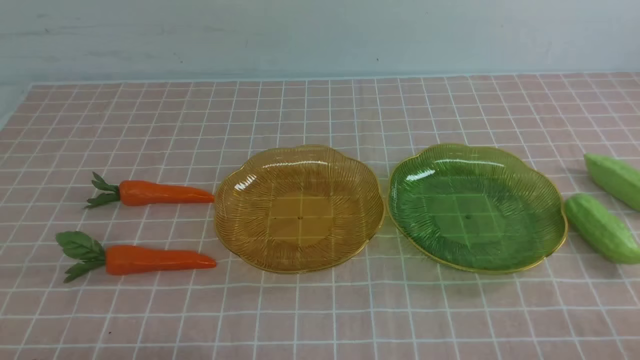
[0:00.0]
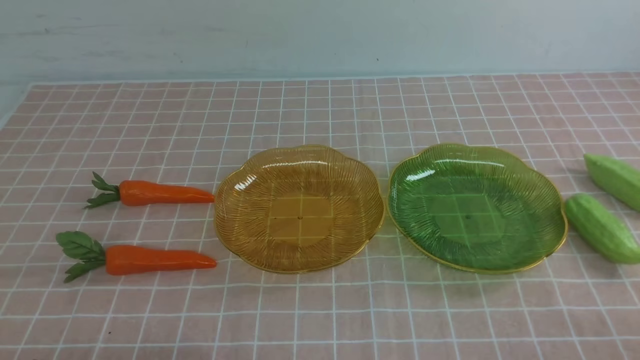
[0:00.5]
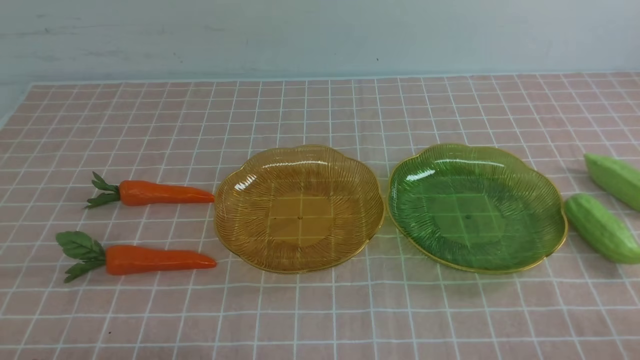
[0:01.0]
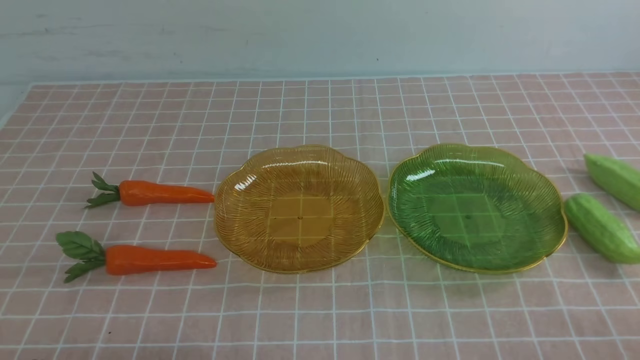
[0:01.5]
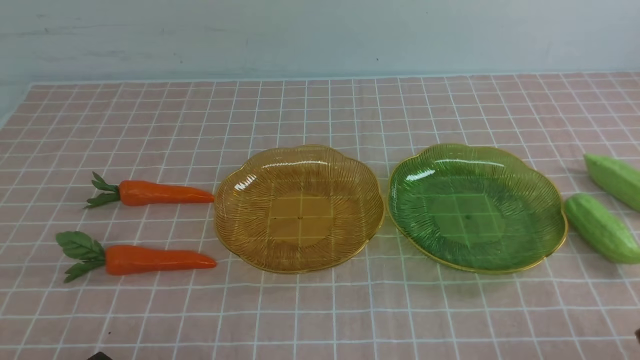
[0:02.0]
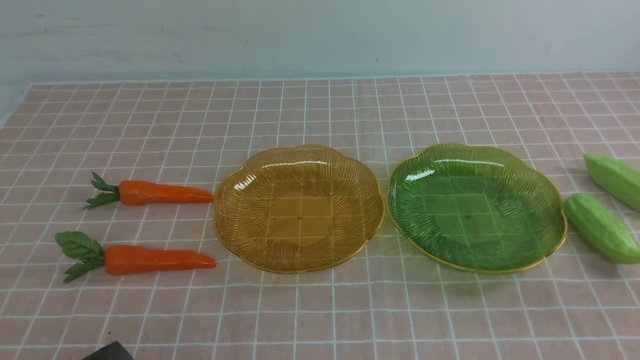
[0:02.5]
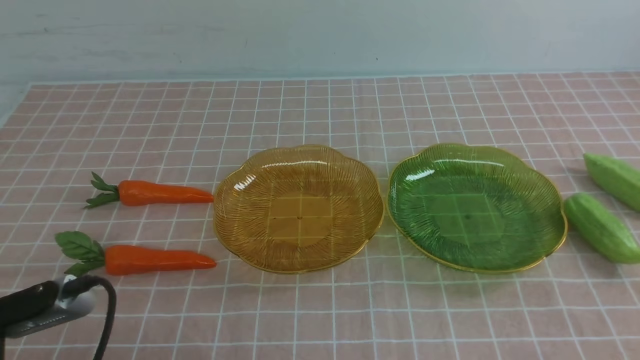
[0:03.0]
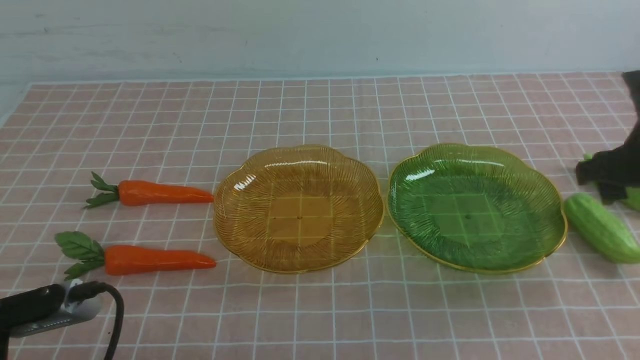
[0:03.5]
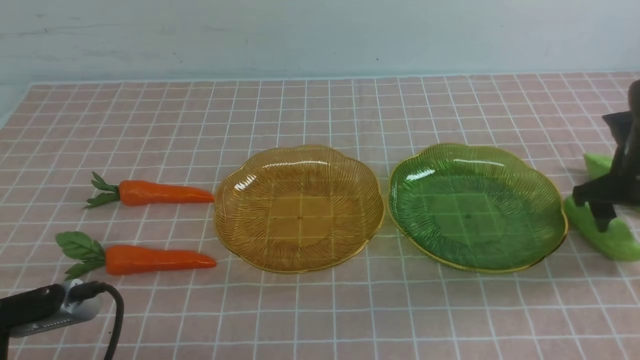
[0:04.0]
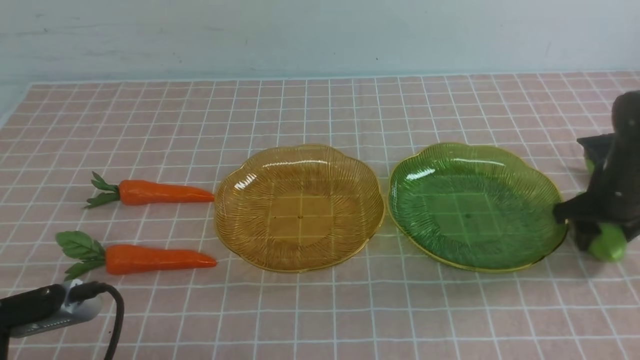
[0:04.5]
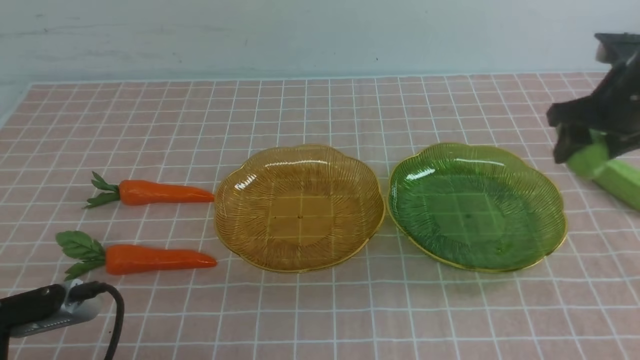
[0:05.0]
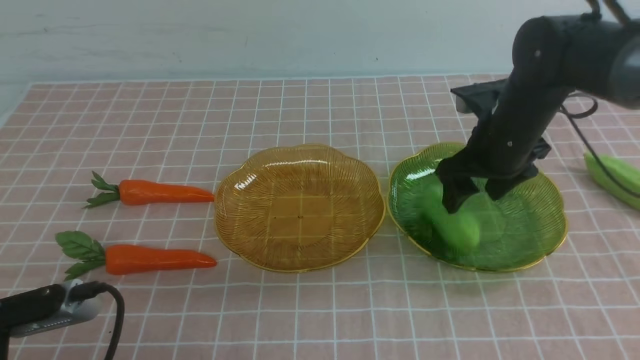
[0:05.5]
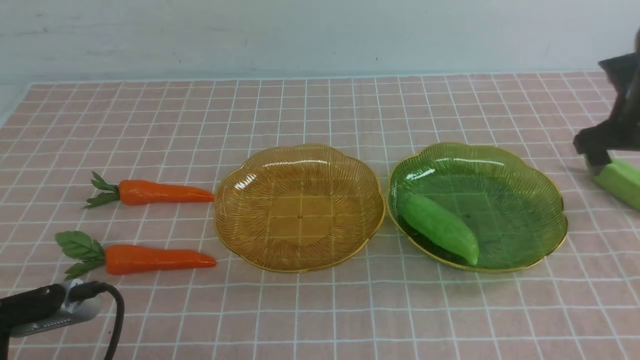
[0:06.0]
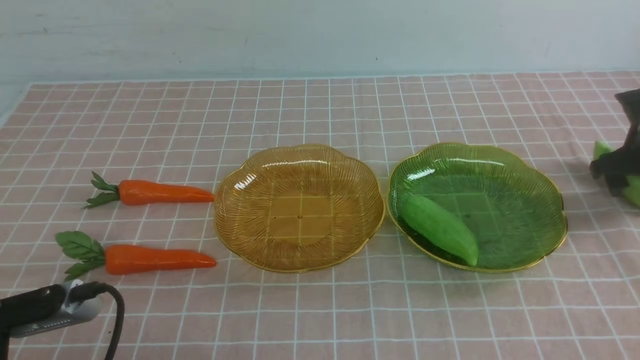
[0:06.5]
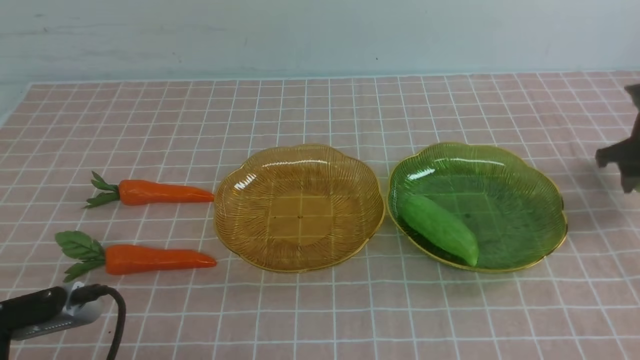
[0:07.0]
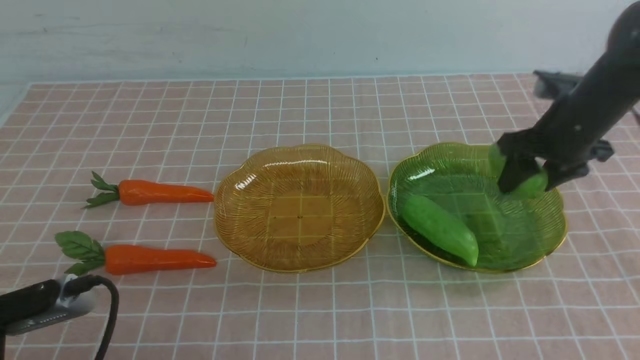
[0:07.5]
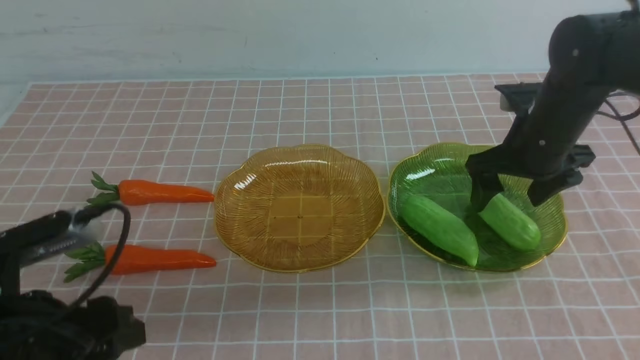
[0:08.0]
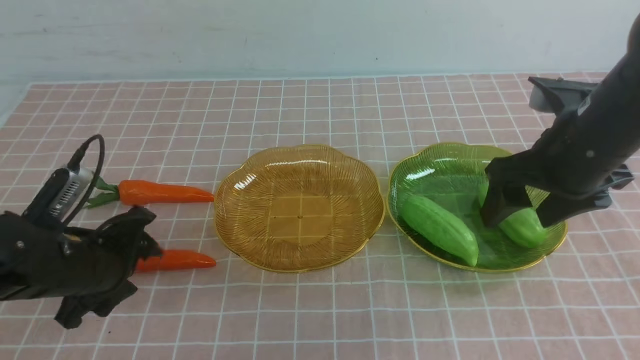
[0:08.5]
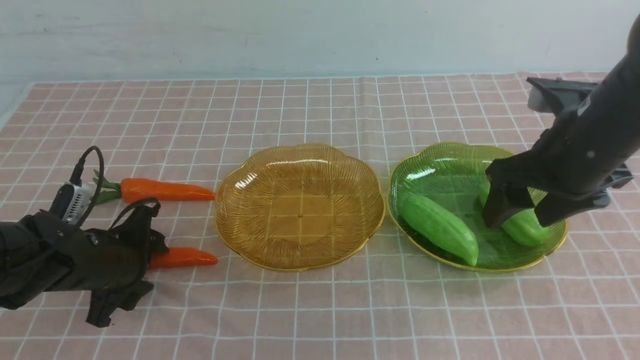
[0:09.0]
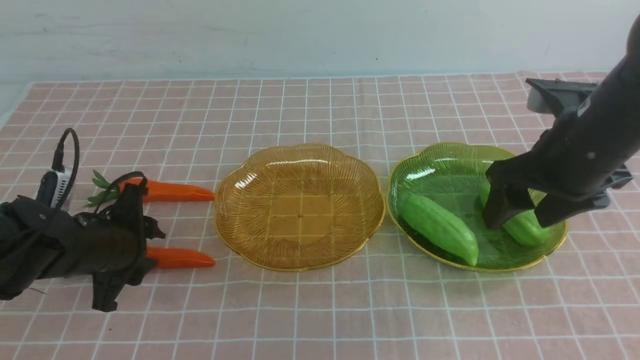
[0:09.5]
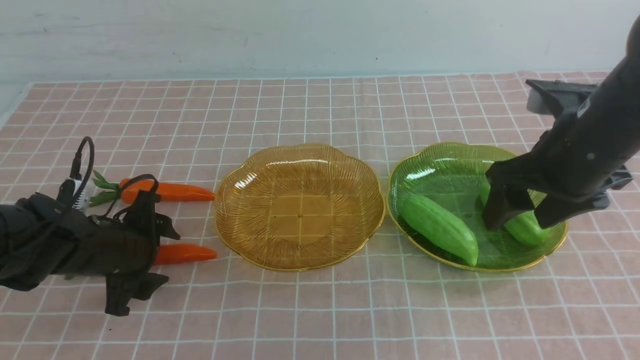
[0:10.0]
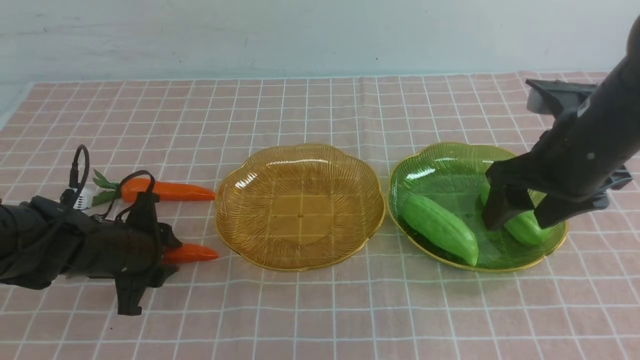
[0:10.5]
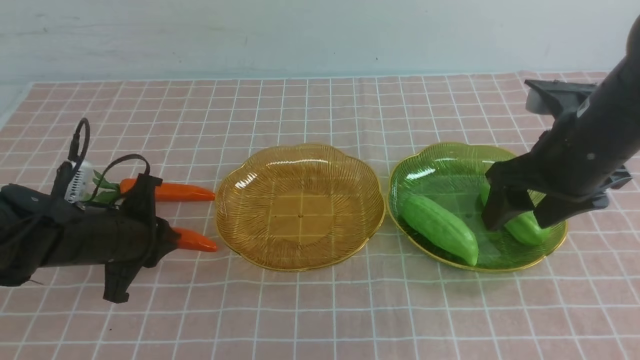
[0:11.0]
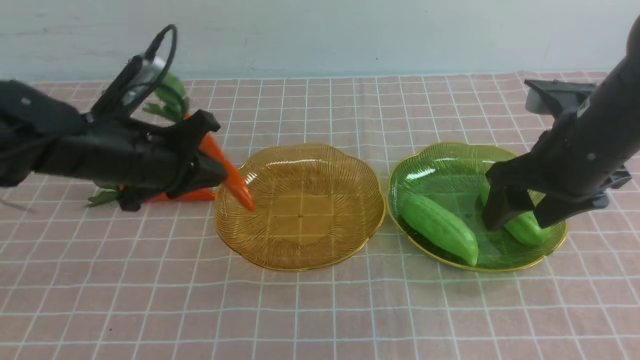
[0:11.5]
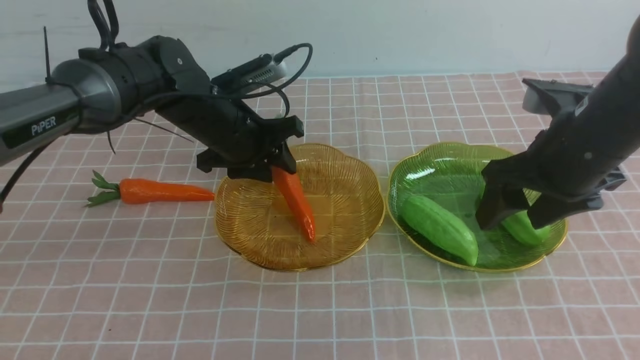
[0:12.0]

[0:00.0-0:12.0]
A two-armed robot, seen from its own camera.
Step, 0:00.0 to 0:05.0: use the right arm to grab a chayote and put it into the right plate.
Step, 0:06.0 to 0:07.5: use the right arm to grab a chayote and put it into the right plate.
0:02.0 to 0:04.0: The right gripper moves forward, about 35 cm, and opens its fingers. Meanwhile the left gripper ends up approximately 5 cm from where it was.
0:04.0 to 0:06.0: The right gripper heads forward, covering about 5 cm, and reaches approximately 10 cm to the left, then returns.
0:06.0 to 0:08.0: The right gripper shifts about 15 cm to the left and backward. The left gripper goes roughly 5 cm forward, and opens its fingers.
0:08.0 to 0:10.0: The left gripper shifts some 15 cm forward and downward; the right gripper moves backward, roughly 5 cm.
0:10.0 to 0:12.0: The left gripper travels forward, upward and to the right by roughly 15 cm, and closes and opens again.

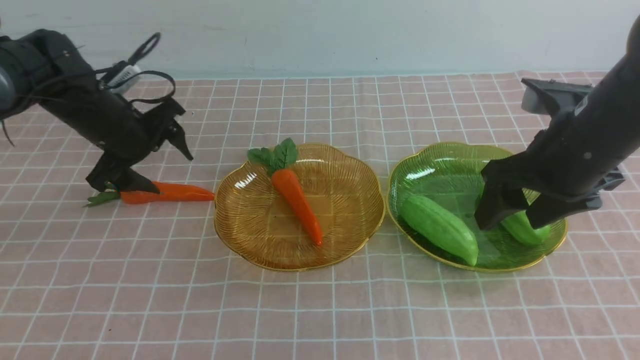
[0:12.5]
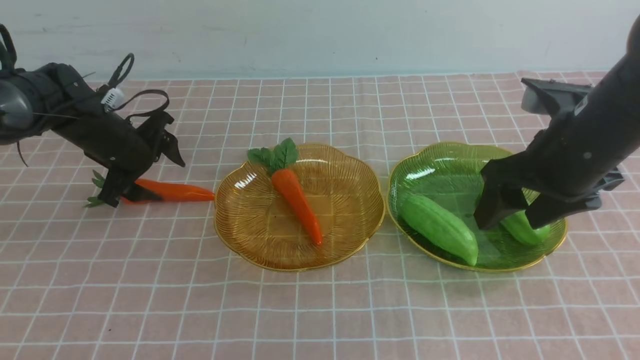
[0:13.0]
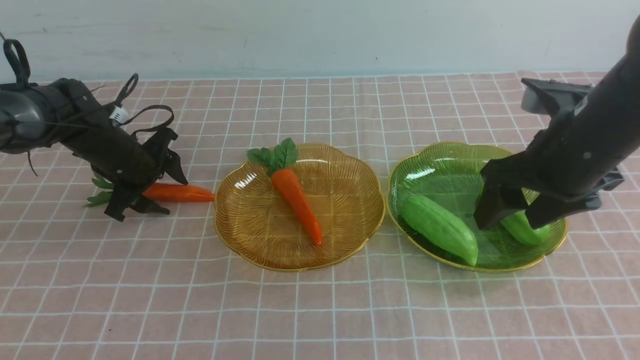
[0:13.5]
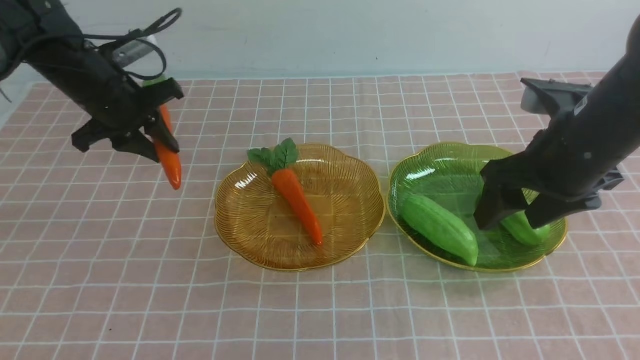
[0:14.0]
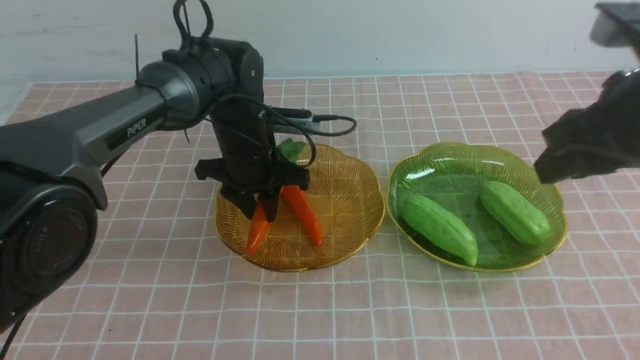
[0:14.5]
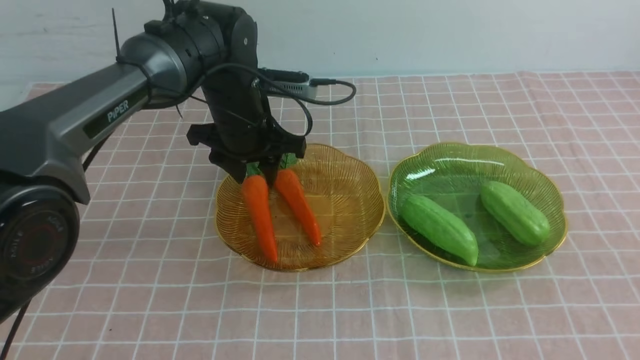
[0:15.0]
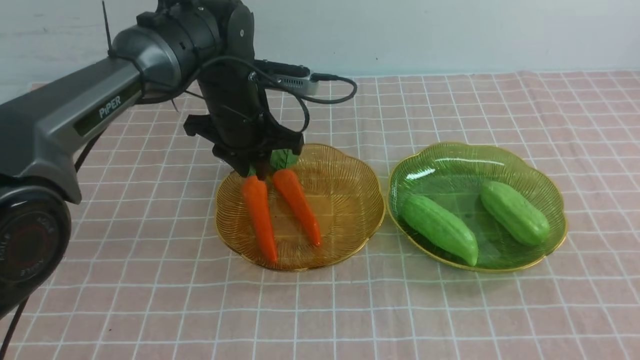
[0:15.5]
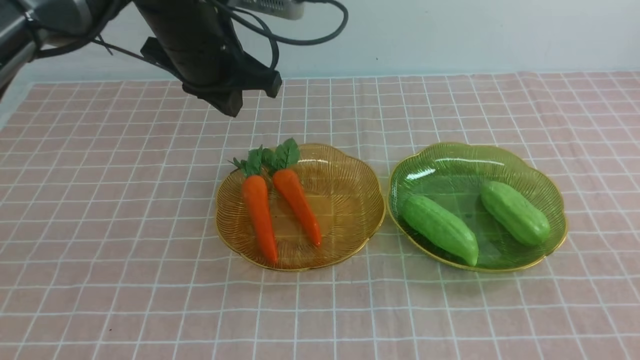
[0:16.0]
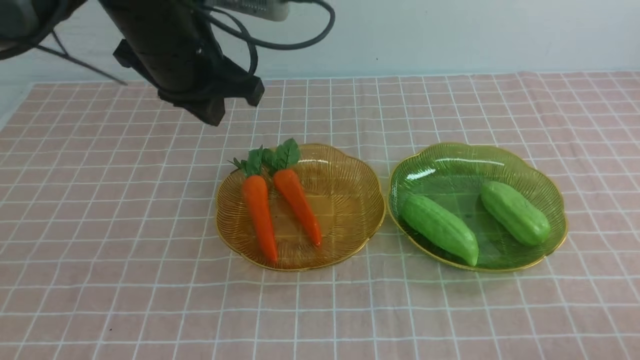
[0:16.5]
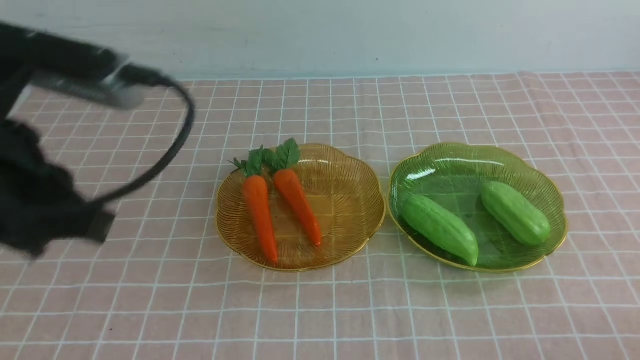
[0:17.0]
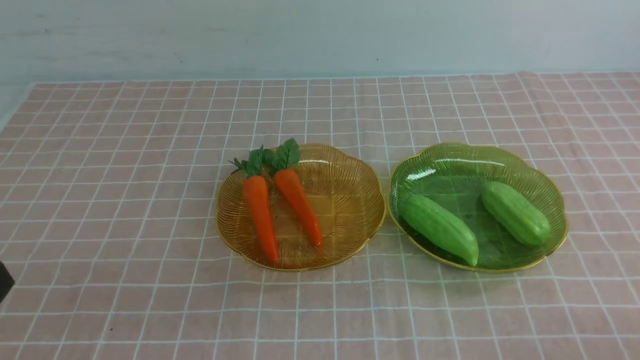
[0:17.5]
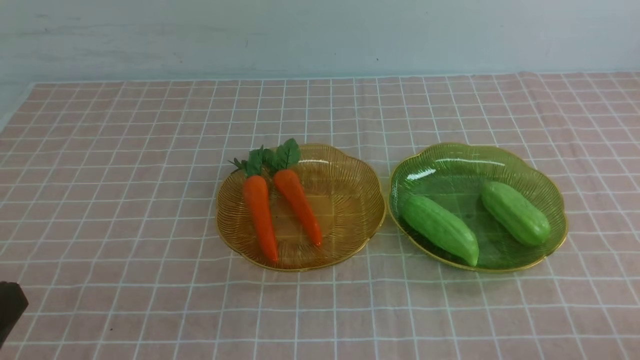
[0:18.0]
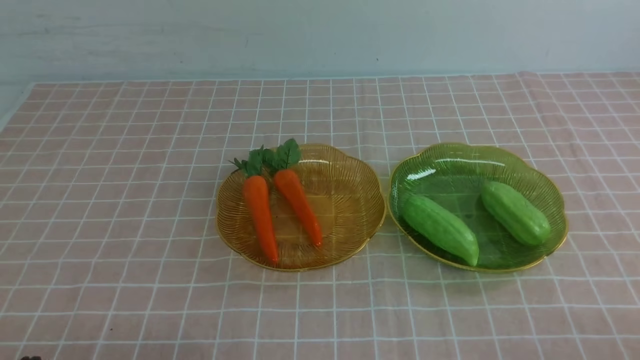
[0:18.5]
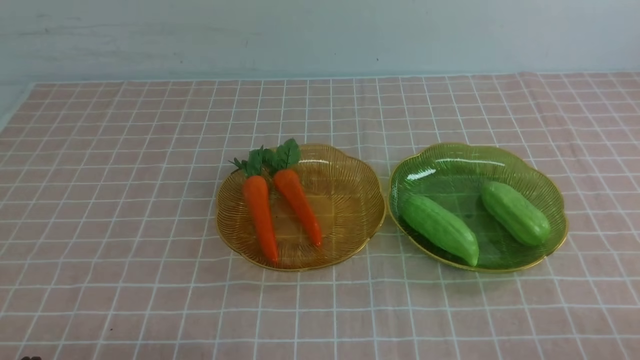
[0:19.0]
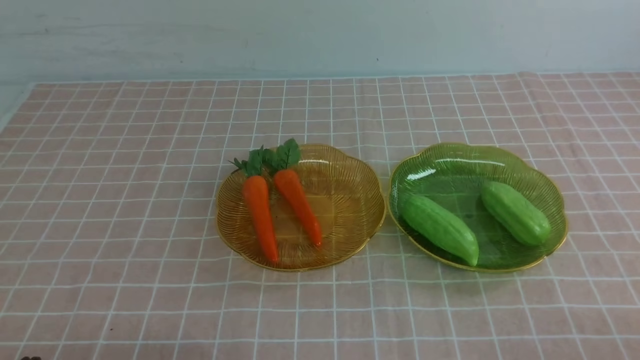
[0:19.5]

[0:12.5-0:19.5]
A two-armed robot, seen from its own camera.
Step, 0:12.5 to 0:14.5: use the left arm to grab a carrot and put it into the left plate.
0:12.5 to 0:14.5: The left gripper moves to the right, some 15 cm, and closes; the right gripper shifts approximately 15 cm upward and backward, and closes.
0:14.5 to 0:16.0: The right gripper travels backward and downward by about 20 cm. Meanwhile the left gripper shifts some 15 cm upward, and closes.
0:16.0 to 0:17.5: The left gripper heads backward, covering about 35 cm; the right gripper shifts roughly 10 cm downward.
